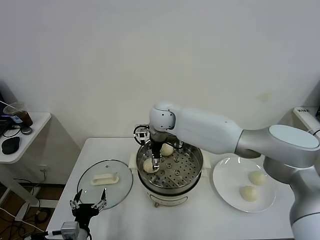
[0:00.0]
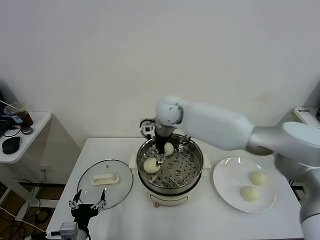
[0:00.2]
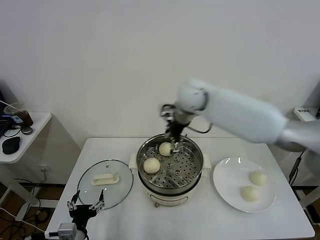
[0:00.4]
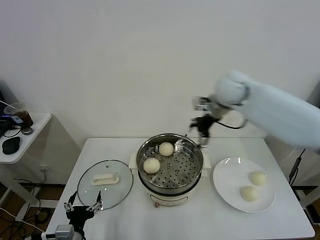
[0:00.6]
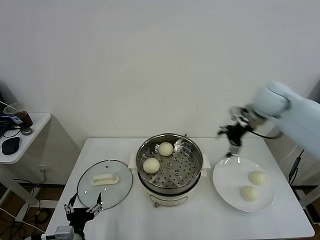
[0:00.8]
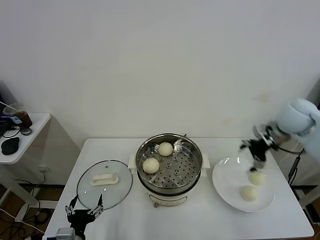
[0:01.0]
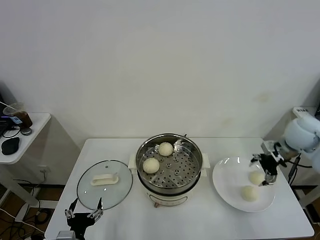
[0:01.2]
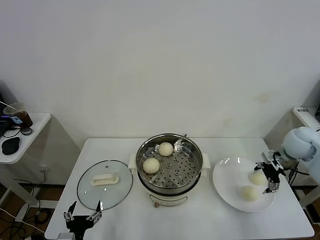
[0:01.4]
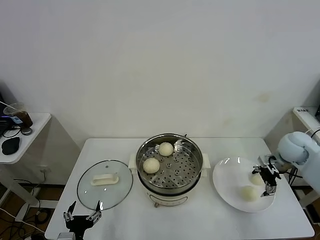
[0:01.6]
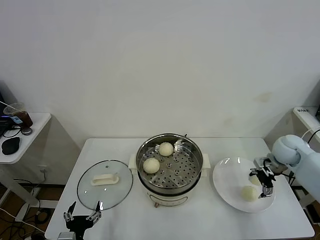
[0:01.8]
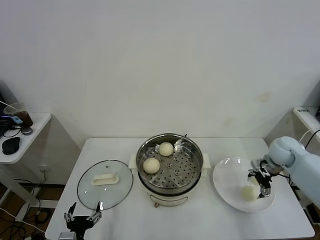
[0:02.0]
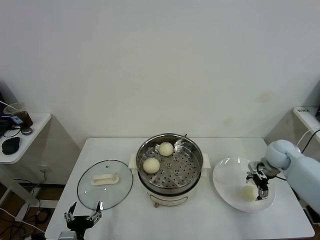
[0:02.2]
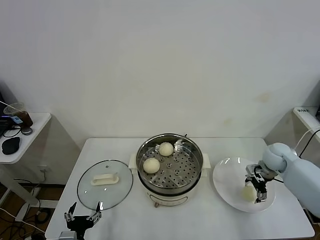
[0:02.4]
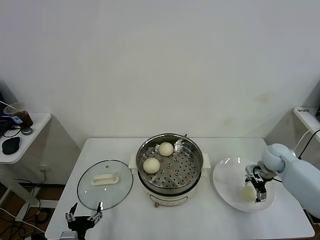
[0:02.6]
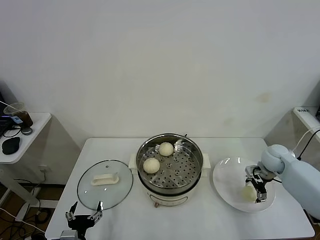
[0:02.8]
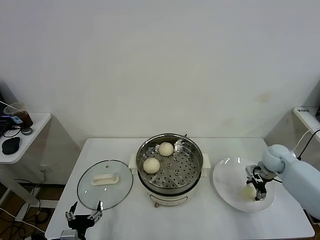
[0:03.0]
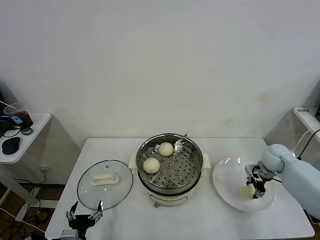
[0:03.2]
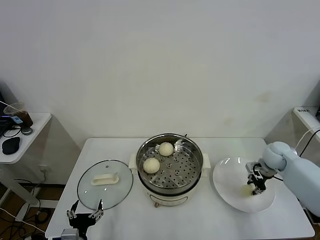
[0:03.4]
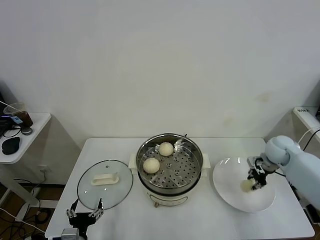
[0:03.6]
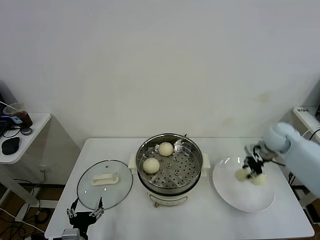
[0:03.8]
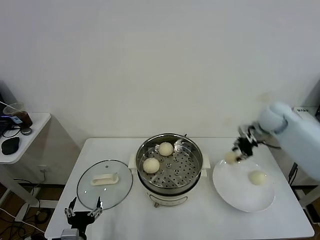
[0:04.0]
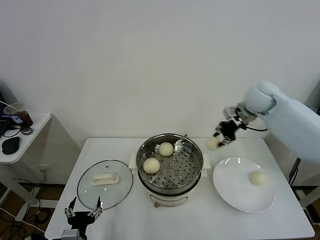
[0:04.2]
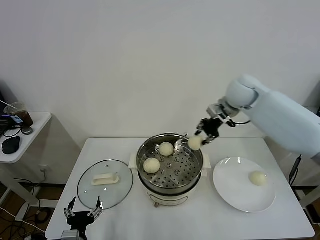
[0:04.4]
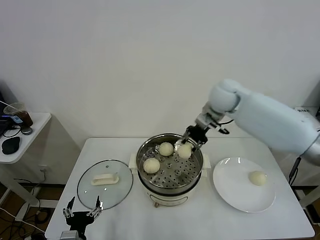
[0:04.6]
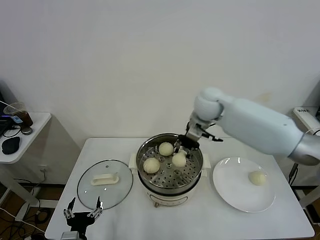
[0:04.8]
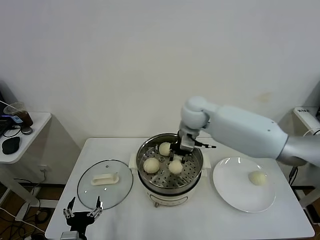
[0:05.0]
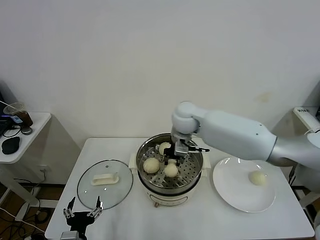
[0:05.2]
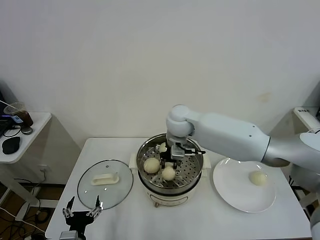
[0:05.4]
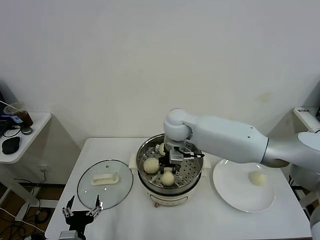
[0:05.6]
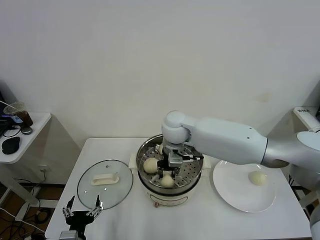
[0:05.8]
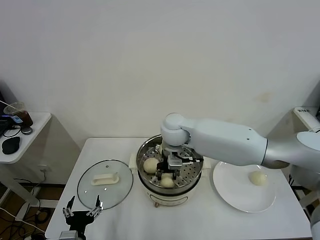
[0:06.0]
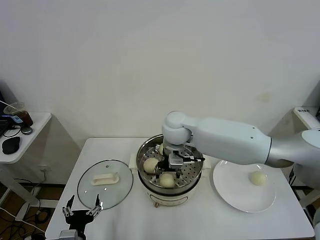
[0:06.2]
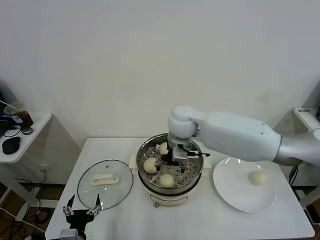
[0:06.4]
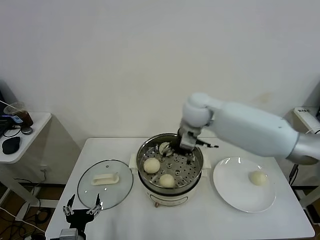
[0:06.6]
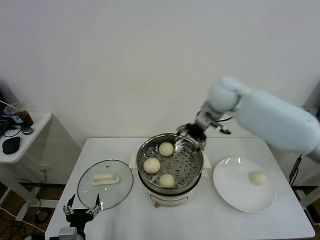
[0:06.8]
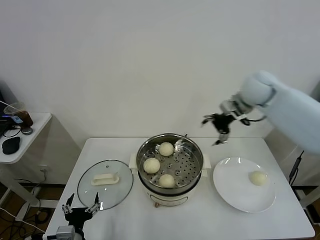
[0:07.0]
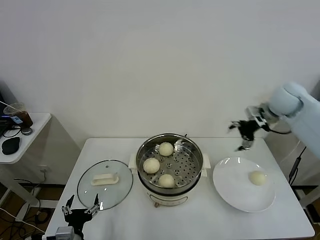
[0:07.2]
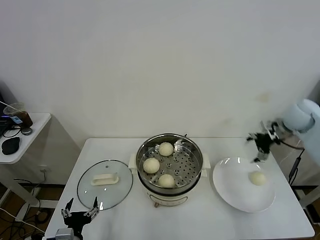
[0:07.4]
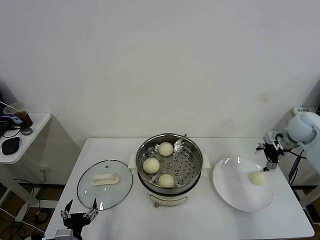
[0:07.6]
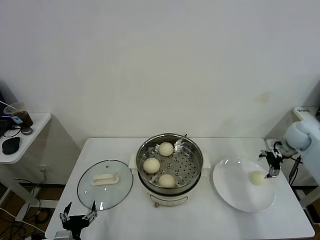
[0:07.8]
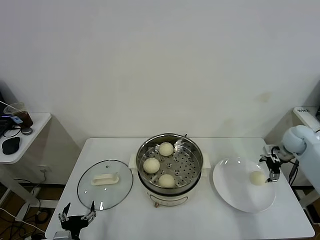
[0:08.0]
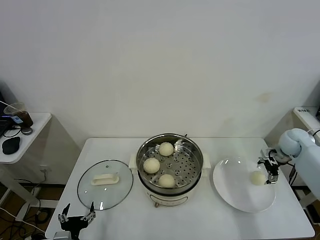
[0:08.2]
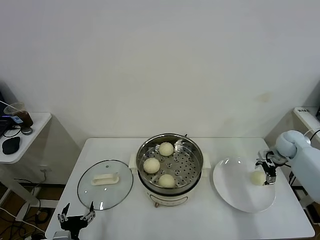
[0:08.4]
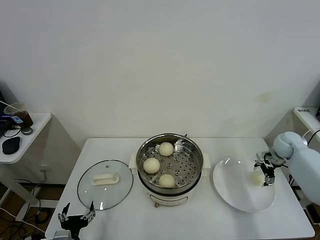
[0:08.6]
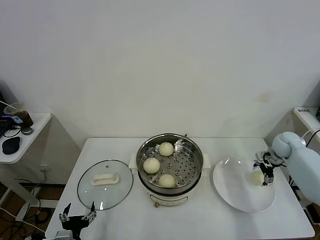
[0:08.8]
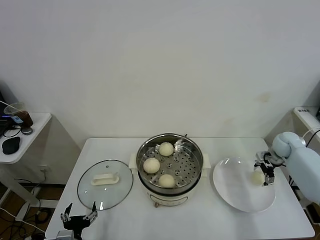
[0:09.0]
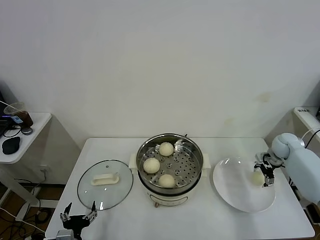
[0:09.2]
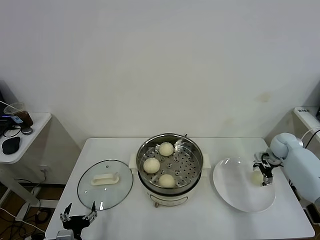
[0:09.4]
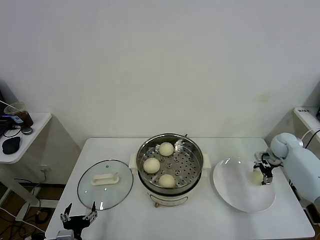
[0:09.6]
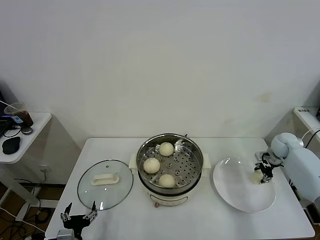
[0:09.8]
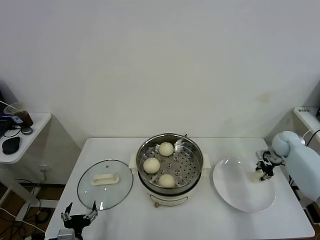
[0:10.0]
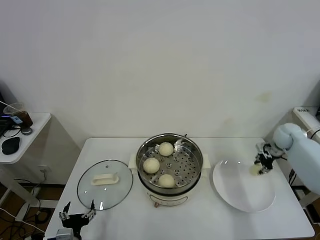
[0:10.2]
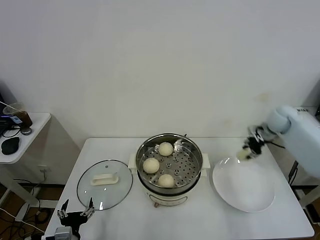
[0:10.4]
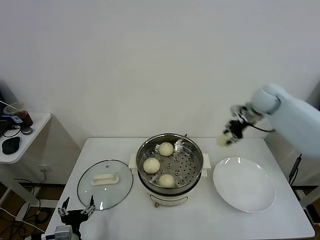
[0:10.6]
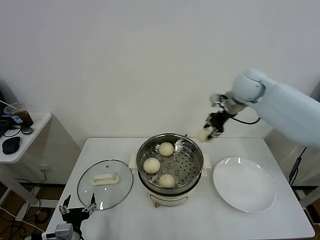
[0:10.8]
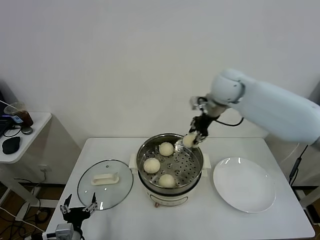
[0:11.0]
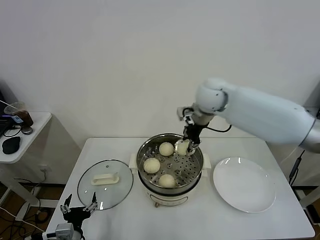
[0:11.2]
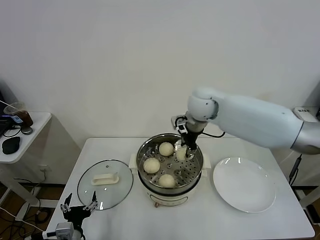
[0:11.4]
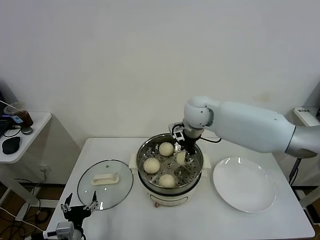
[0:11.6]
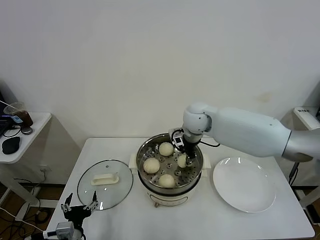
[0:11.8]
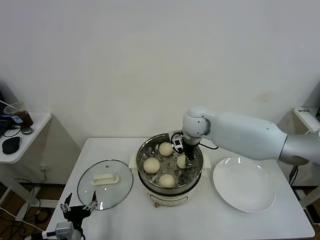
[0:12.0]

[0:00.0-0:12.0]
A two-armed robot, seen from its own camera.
Task of the whole recording: take steamed baozi put them in steamer.
Step, 0:00.4 to 0:03.4: Grasp the baozi in the plate with right gripper.
Step, 0:03.6 to 0:06.2: Place the baozi on the steamer with right gripper.
Step, 0:06.6 to 0:10.0: Grasp the baozi in the plate with right gripper.
0:00.0 to 0:01.6: The right gripper heads to the right, covering some 40 cm.
0:01.6 to 0:03.0: The right gripper shifts about 10 cm downward, and closes its fingers.
0:03.0 to 0:04.4: The right gripper travels upward and to the left by about 30 cm, and closes its fingers.
0:04.4 to 0:06.0: The right gripper shifts roughly 25 cm to the left and downward.
0:06.0 to 0:07.6: The right gripper moves to the right, approximately 40 cm, and opens its fingers.
0:07.6 to 0:09.0: The right gripper is displaced downward by approximately 10 cm.
0:09.0 to 0:10.4: The right gripper is displaced upward by approximately 10 cm, and closes its fingers.
0:10.4 to 0:12.0: The right gripper moves to the left, some 35 cm.

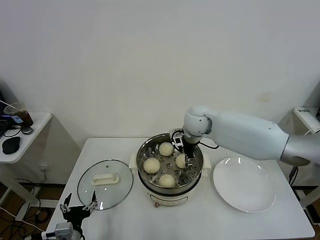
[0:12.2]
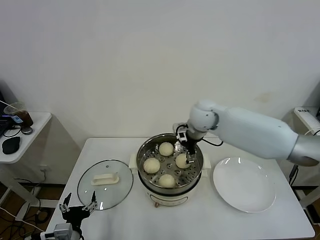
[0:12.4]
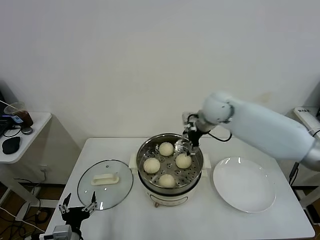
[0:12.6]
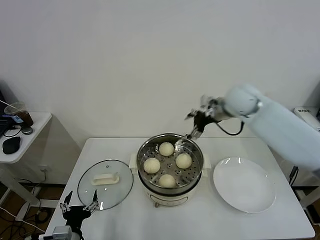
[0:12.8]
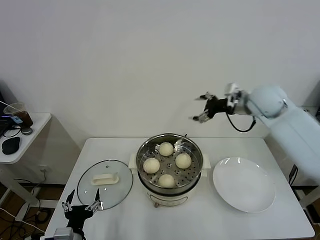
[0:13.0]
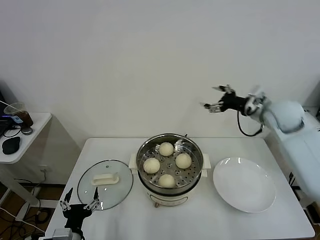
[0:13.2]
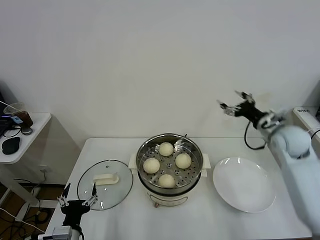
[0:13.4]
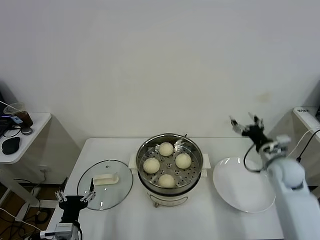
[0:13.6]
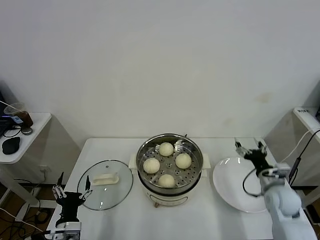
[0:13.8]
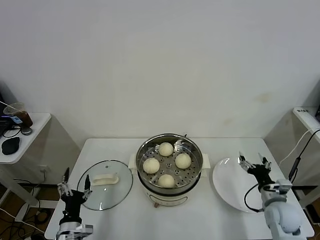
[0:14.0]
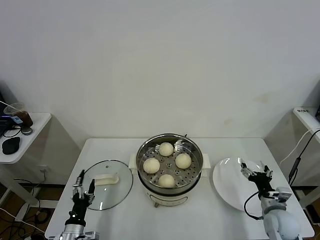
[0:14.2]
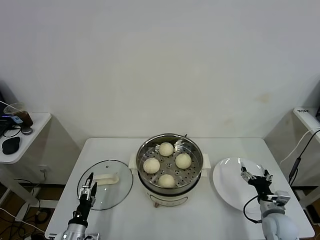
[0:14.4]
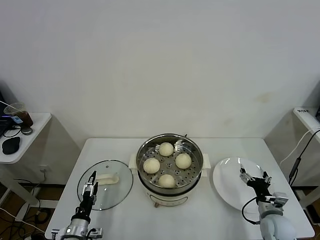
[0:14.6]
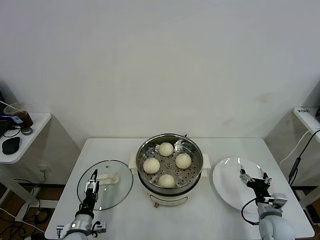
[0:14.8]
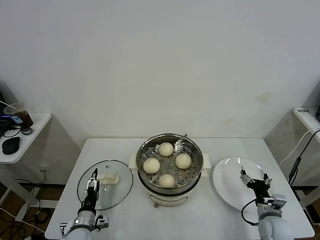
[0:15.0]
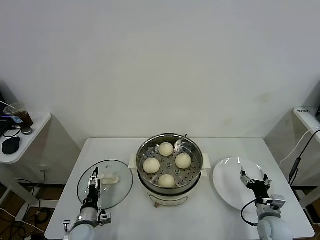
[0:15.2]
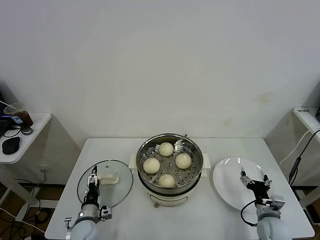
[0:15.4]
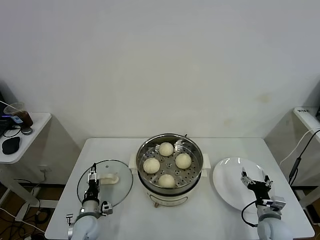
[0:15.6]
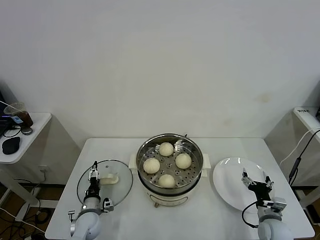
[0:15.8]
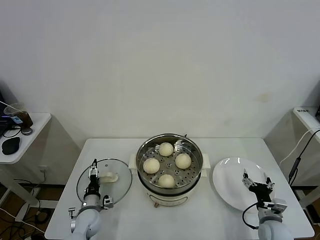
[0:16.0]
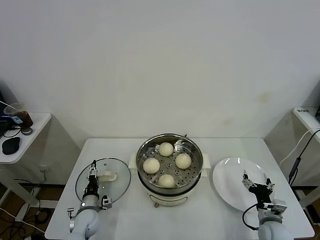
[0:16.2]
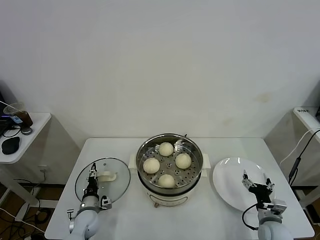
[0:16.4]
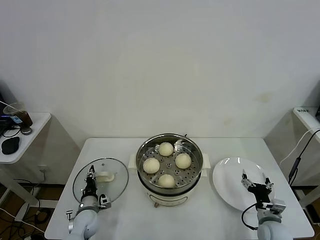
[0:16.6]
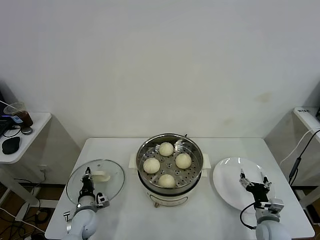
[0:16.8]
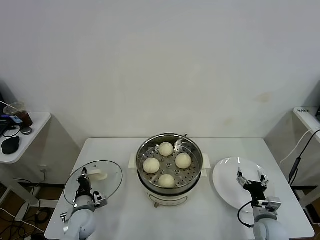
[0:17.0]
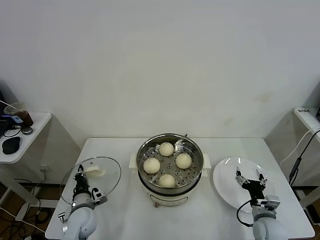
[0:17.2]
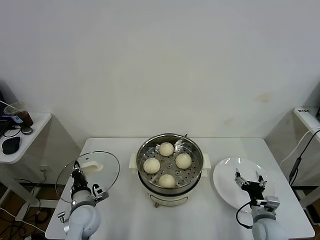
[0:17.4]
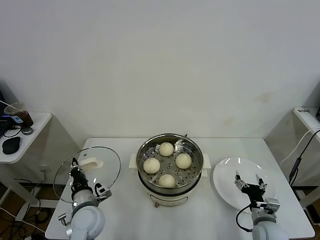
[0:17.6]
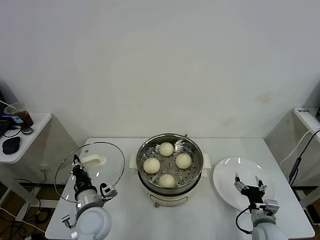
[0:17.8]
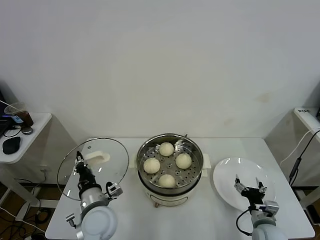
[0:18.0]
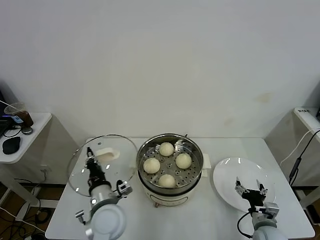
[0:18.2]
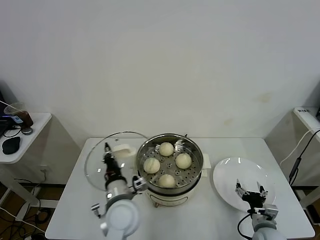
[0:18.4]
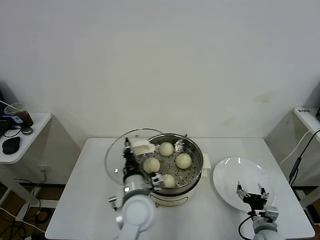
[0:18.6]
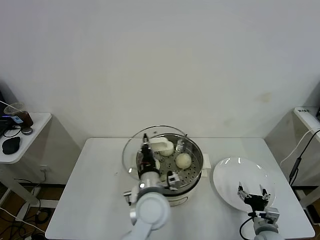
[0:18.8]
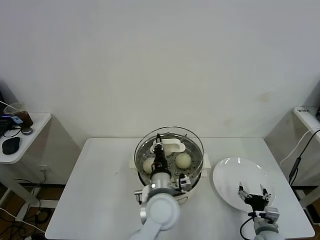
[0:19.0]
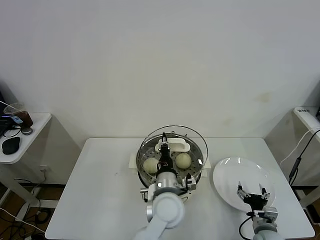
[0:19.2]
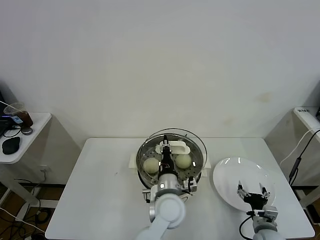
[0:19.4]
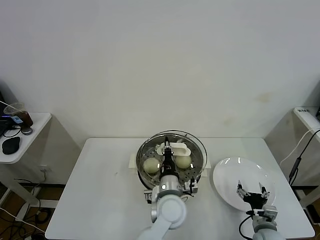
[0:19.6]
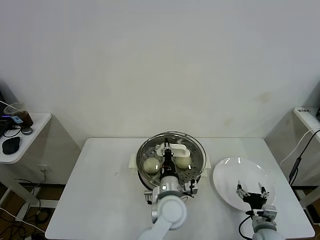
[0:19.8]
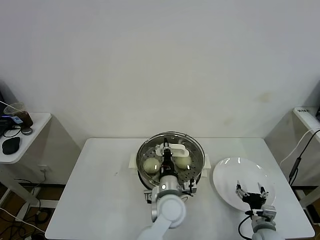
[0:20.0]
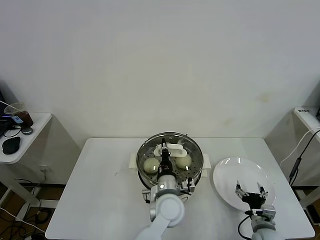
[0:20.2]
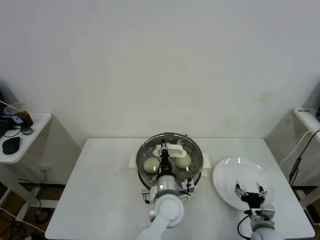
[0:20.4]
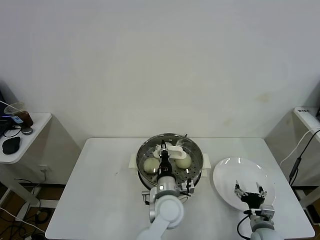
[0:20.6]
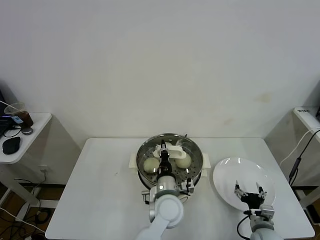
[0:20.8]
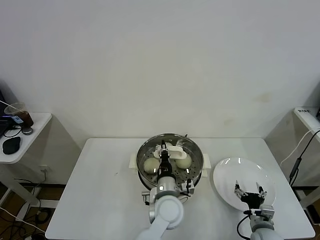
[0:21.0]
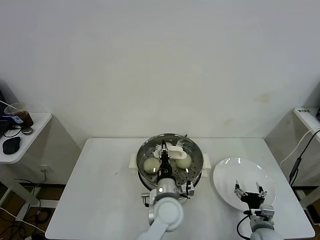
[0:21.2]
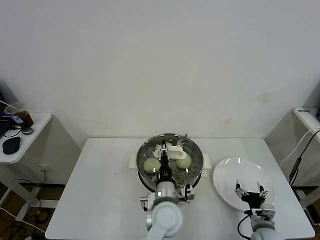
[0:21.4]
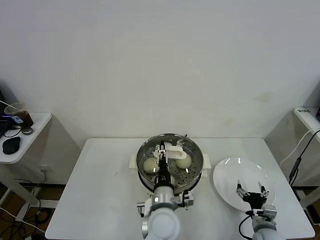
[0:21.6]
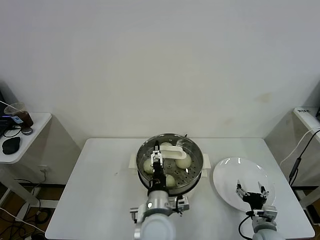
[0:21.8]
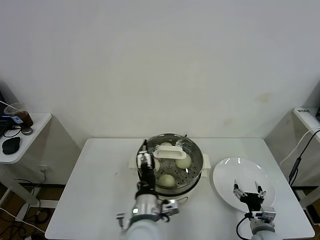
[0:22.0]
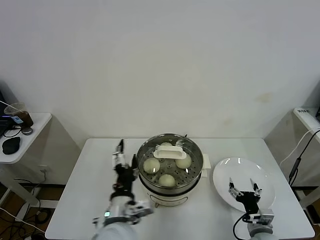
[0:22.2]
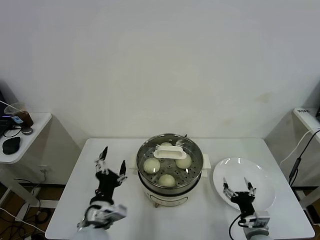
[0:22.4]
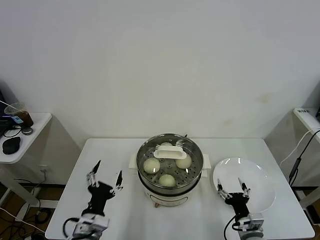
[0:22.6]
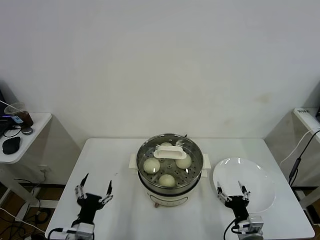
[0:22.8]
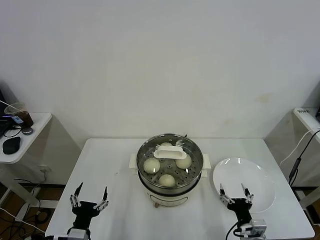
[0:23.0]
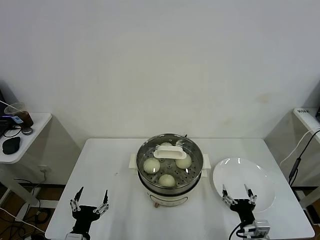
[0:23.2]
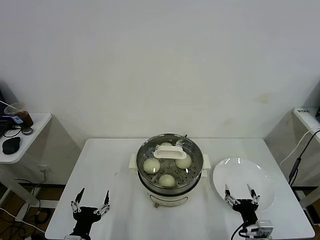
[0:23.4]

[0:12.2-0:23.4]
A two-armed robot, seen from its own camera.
Task of the whole recording: take steamed baozi put them in steamer.
Step, 0:12.6 to 0:16.8: Grasp the pot lid with left gripper.
Step, 0:17.2 to 0:21.6: Place the pot lid on the steamer with left gripper.
0:12.2 to 0:13.8: The right gripper is displaced to the right, backward and downward by some 35 cm.
0:13.8 to 0:15.4: The right gripper travels downward and backward by some 15 cm. The left gripper travels downward and forward by about 15 cm.
0:15.4 to 0:17.0: The left gripper closes.
0:17.0 to 0:18.6: The left gripper heads to the right and upward, covering about 30 cm.
0:18.6 to 0:20.2: The left gripper travels to the right by approximately 10 cm.
0:20.2 to 0:21.8: The left gripper travels backward by some 5 cm, and opens.
0:21.8 to 0:23.4: The right gripper moves backward and to the left, some 5 cm. The left gripper goes roughly 25 cm to the left and backward.
